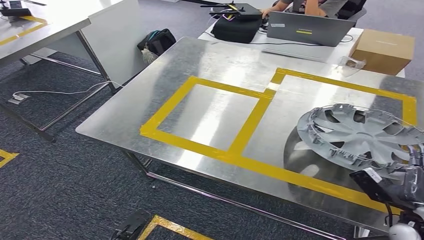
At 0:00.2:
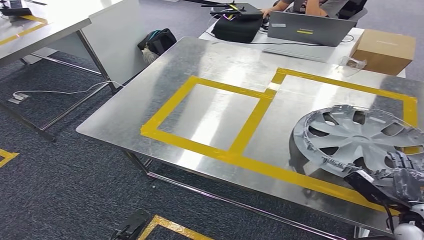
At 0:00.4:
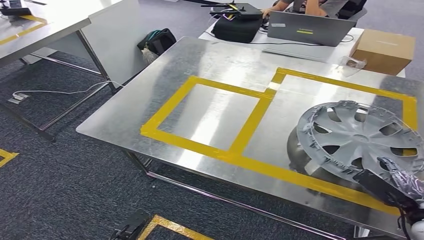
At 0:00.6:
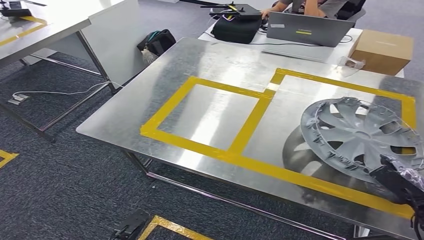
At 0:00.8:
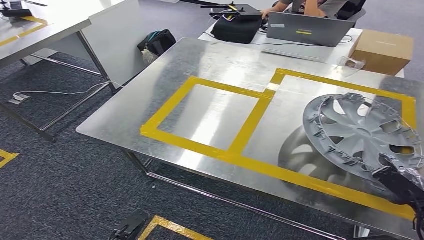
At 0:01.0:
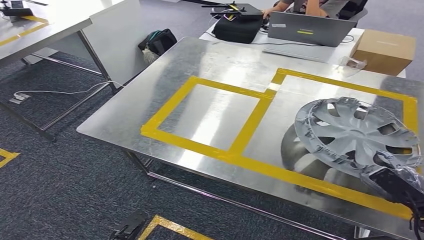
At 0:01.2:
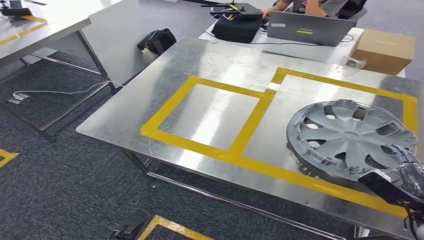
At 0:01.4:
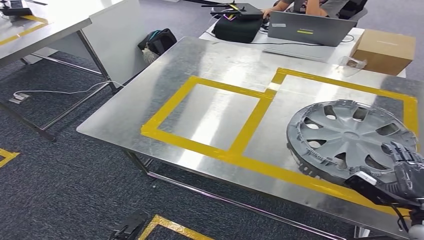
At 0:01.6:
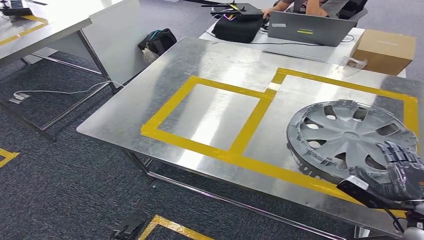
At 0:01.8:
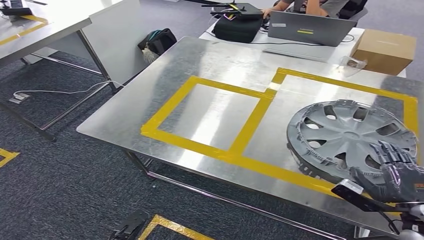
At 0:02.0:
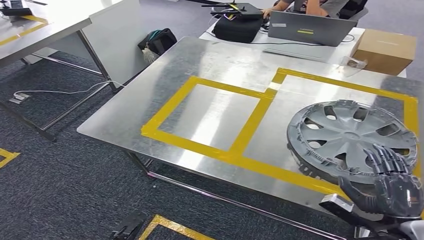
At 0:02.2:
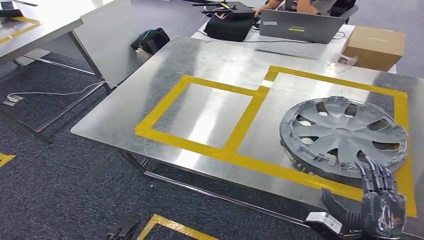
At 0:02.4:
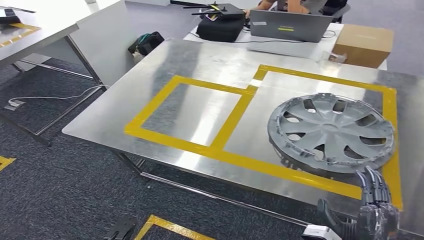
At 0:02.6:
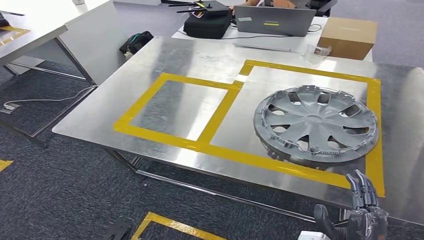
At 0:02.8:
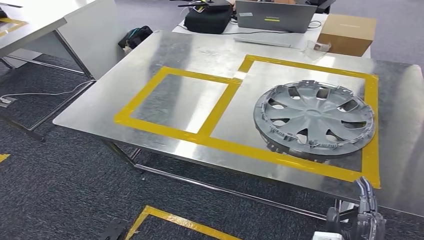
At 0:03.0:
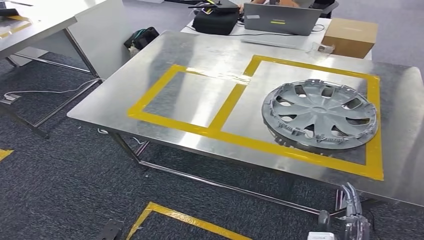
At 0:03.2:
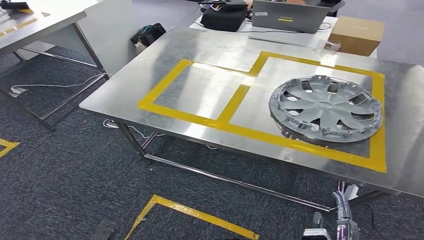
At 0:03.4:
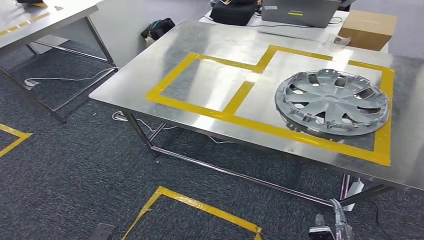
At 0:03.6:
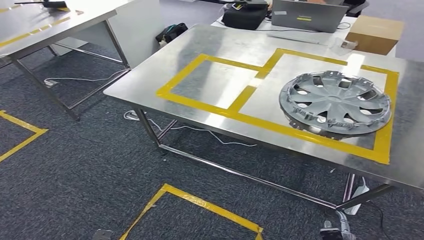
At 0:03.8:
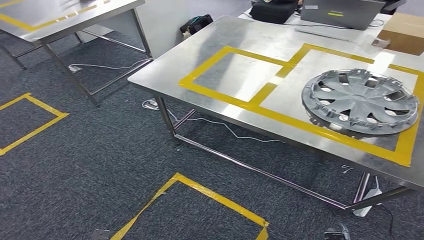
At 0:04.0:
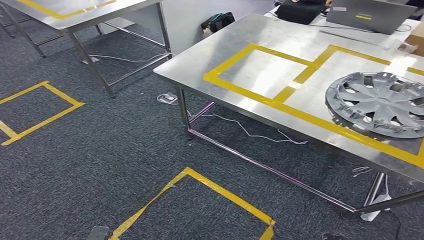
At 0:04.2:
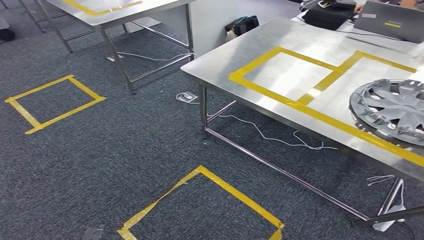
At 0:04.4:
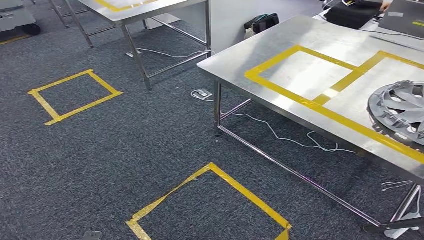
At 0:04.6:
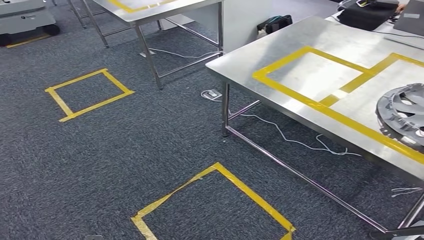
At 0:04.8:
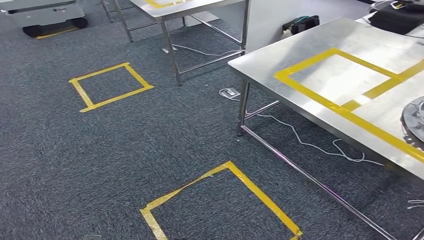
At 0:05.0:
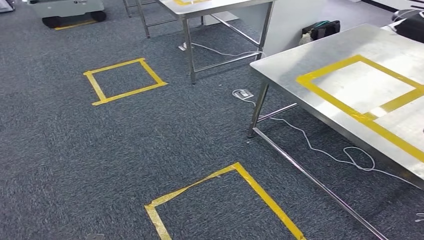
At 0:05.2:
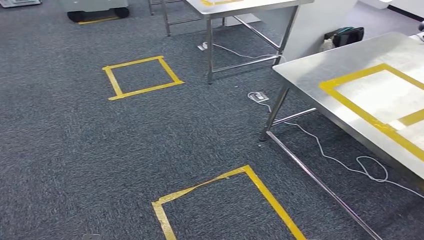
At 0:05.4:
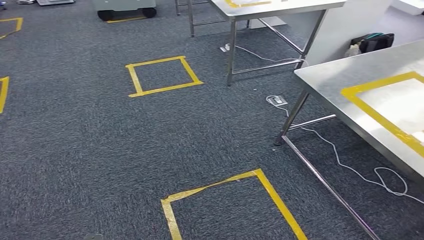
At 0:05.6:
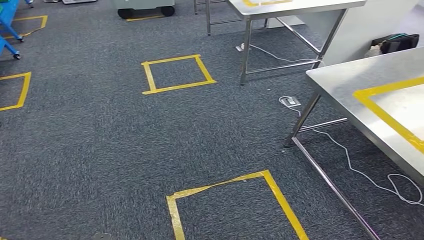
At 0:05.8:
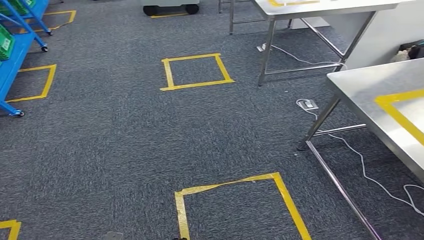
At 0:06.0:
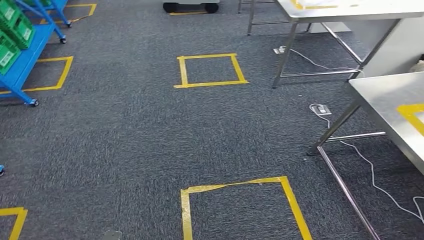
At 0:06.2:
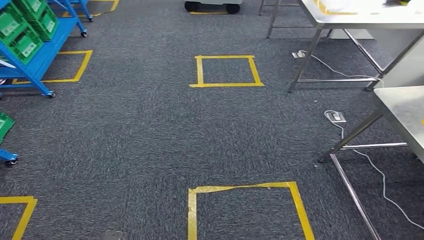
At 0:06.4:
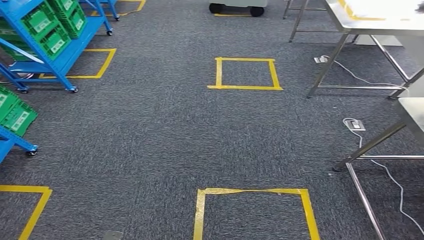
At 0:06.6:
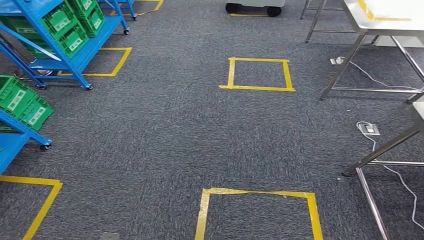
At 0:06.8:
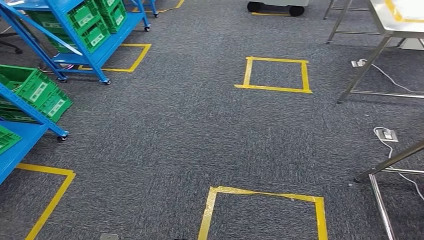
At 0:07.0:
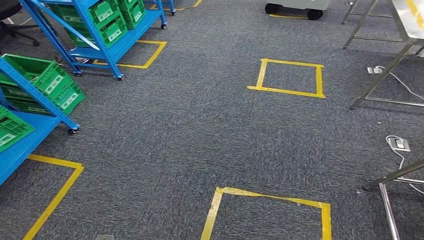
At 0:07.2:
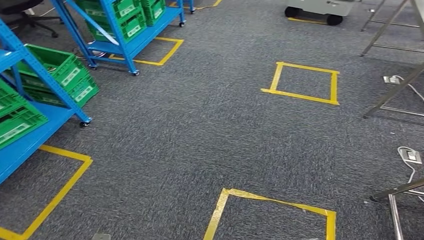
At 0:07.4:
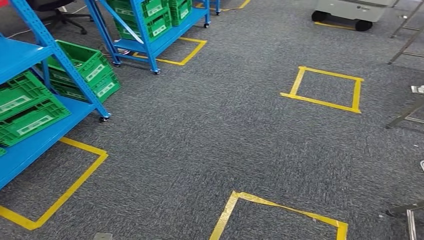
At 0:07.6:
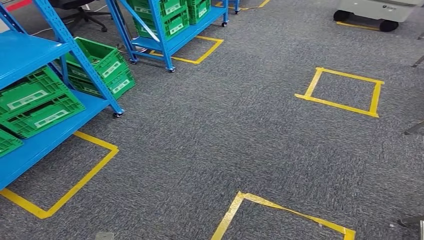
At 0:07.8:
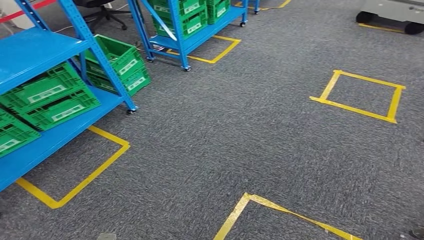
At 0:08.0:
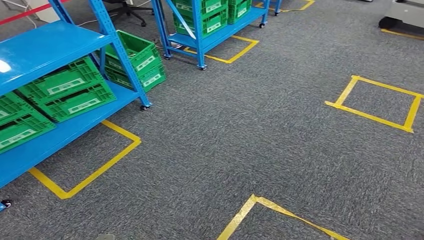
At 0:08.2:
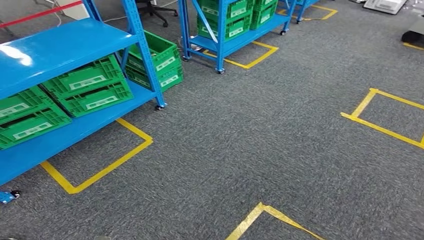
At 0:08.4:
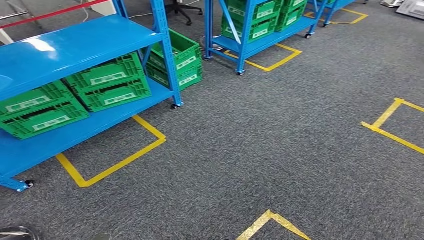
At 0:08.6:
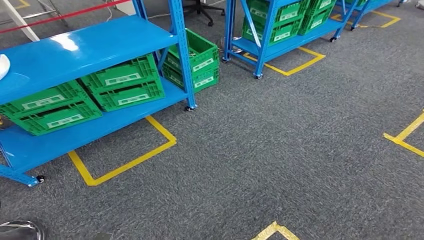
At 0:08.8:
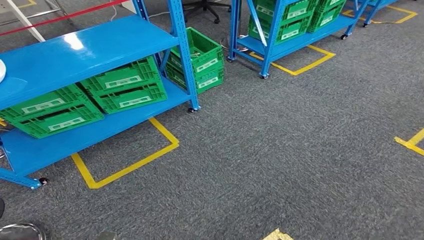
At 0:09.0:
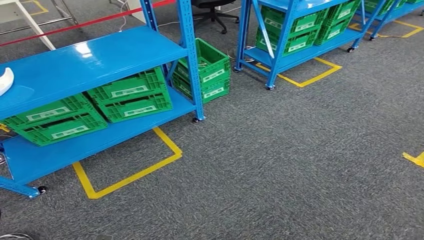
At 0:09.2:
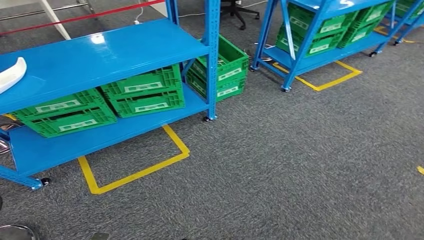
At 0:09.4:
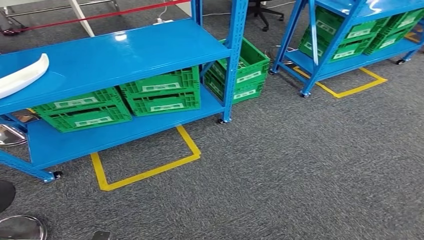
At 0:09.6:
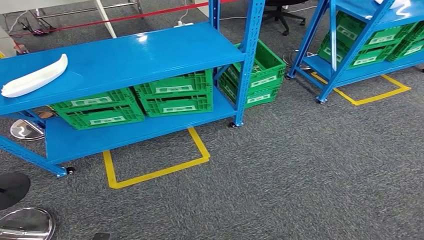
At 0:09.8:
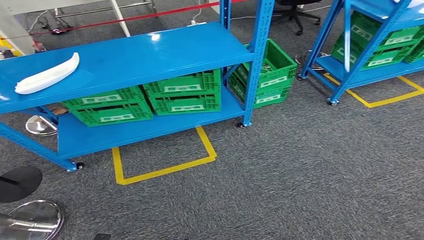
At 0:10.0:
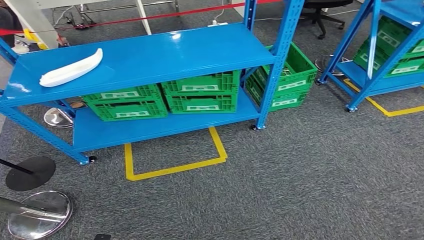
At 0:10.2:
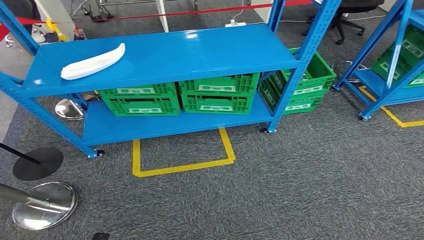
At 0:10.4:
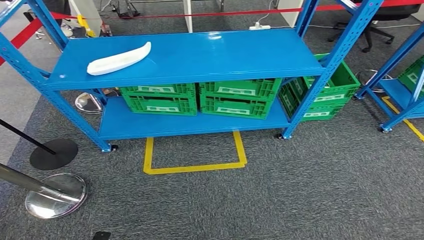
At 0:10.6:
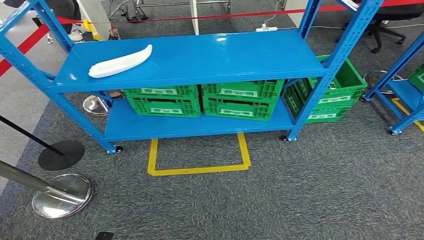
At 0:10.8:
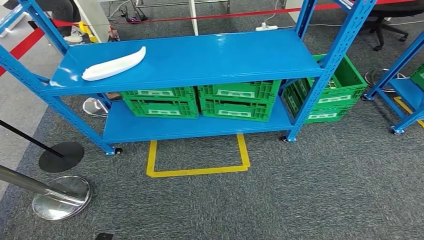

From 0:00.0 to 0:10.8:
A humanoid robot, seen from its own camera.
Step, from 0:00.0 to 0:03.0: Insert the small parts into the corresponding holes on the workbench.
Step, from 0:03.4 to 0:10.8: Move to the initial position of the workbench.
